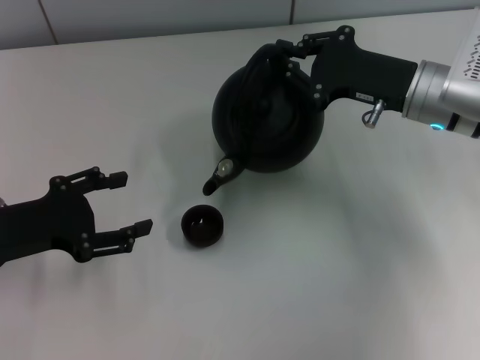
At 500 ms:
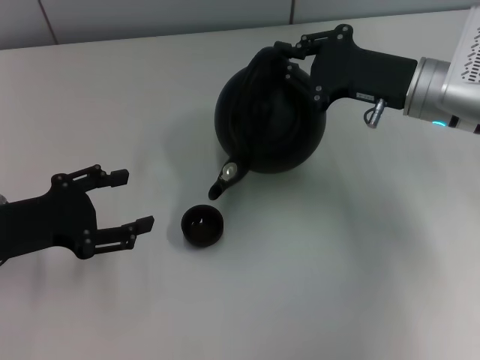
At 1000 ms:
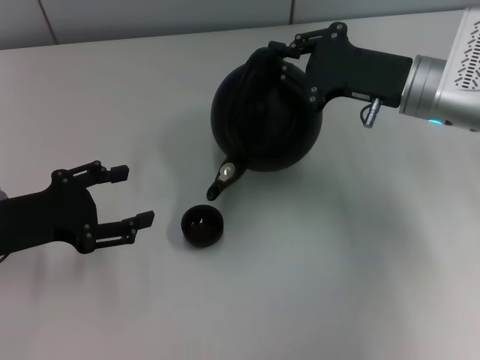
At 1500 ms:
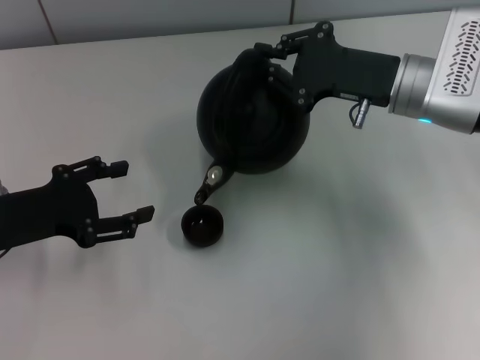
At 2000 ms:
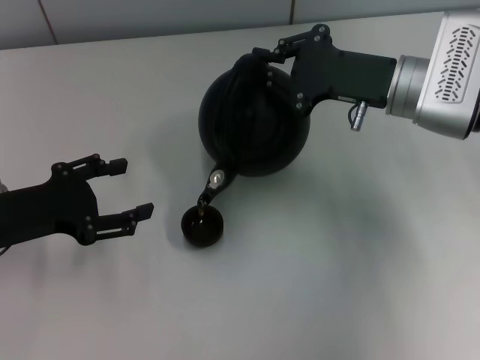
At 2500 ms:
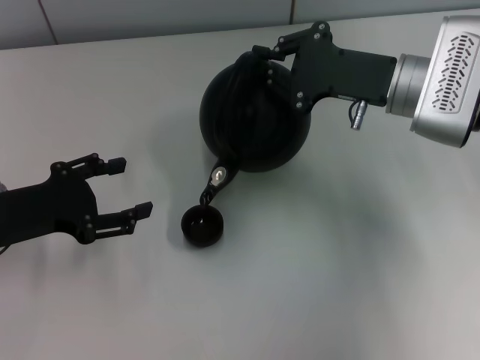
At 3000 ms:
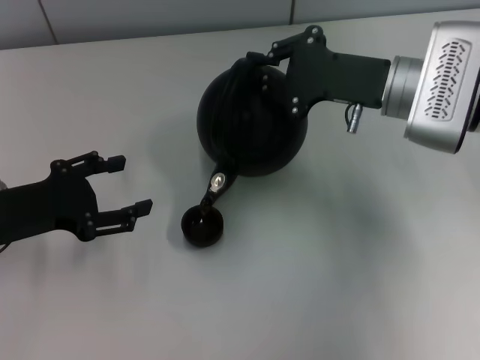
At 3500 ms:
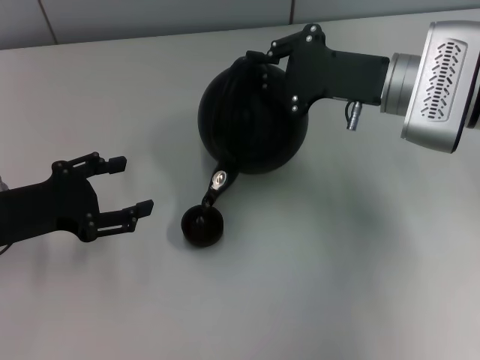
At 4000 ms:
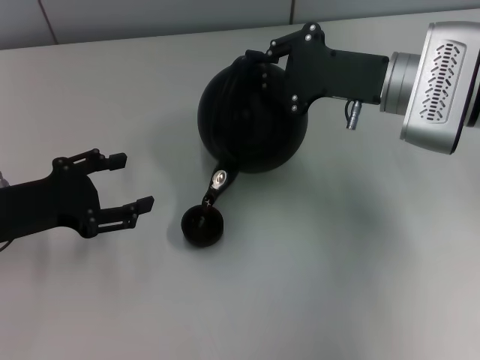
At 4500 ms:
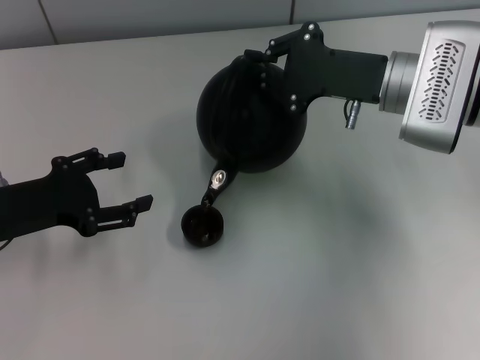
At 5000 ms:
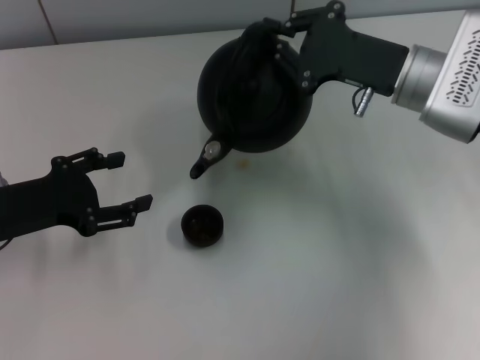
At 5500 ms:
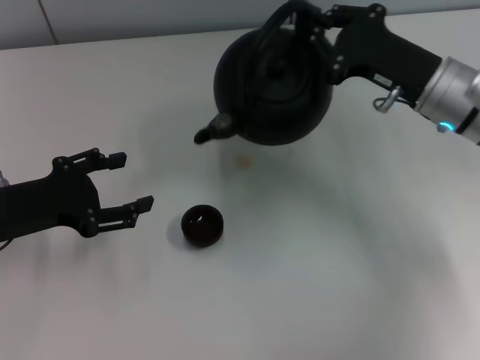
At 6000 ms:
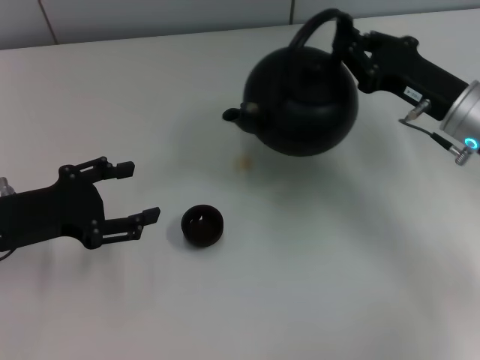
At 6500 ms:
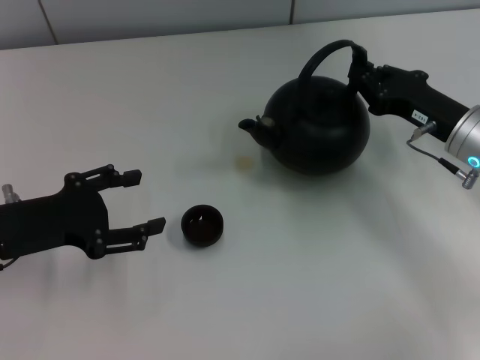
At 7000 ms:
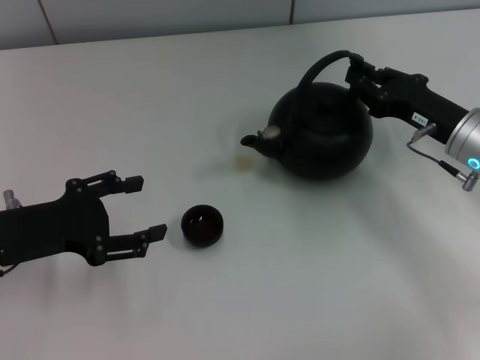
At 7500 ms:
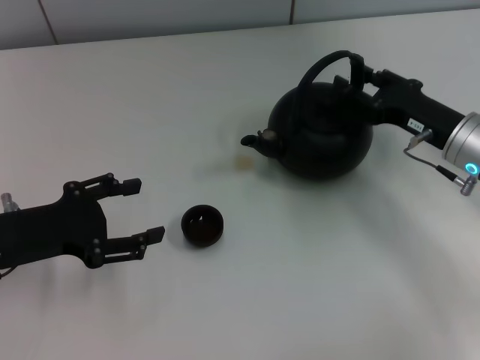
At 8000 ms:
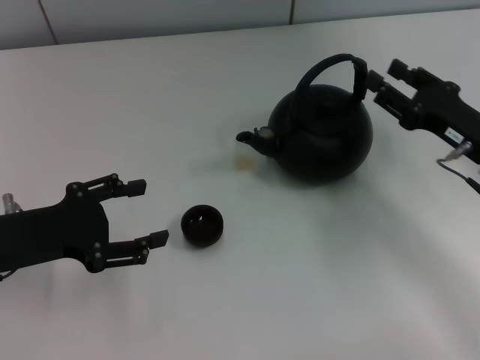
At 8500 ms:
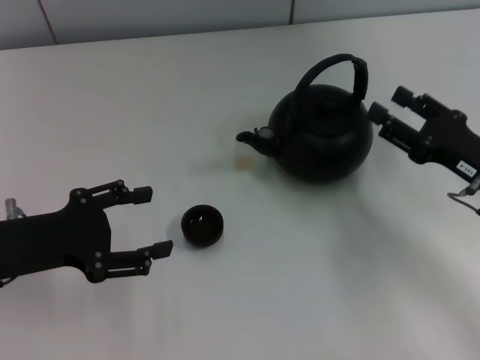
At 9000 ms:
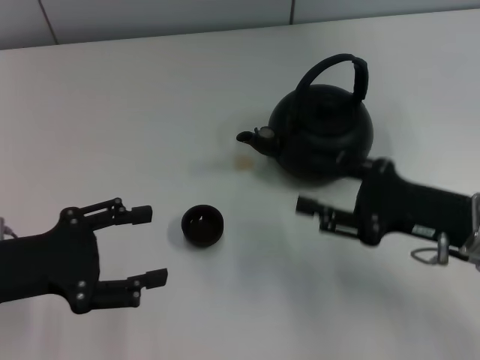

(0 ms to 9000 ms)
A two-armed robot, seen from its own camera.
Task of the whole recording: Grasp the handle of the teapot with one hand and pour tea into the teacup.
Step, 5500 ms - 8500 ms: Put down the teapot with the right gripper.
0 ms - 2000 ms: The grippers make only small movements.
2000 ms - 4500 ms: The grippers stay close to where they were, moving slightly.
4500 ms - 7000 ms: The right gripper moves to the right and downward, approximately 10 cm.
7000 ms - 9000 ms: The right gripper is displaced backward by approximately 10 cm, and opens up.
